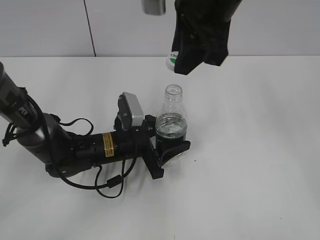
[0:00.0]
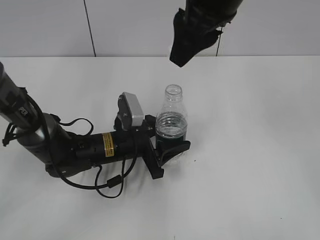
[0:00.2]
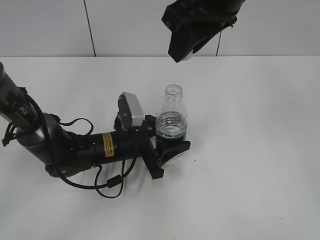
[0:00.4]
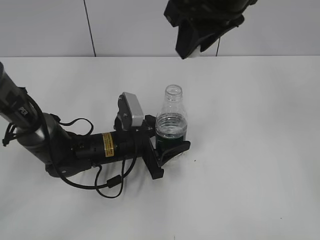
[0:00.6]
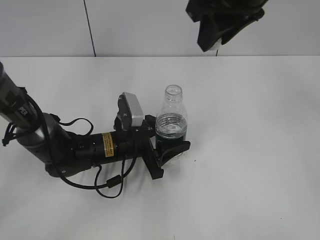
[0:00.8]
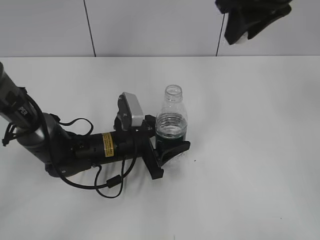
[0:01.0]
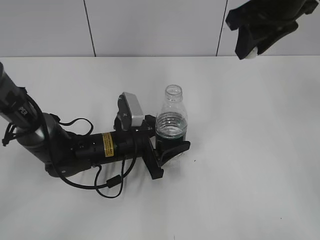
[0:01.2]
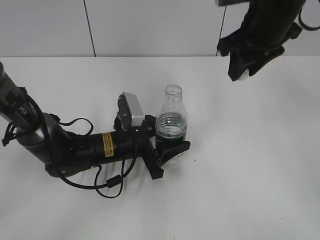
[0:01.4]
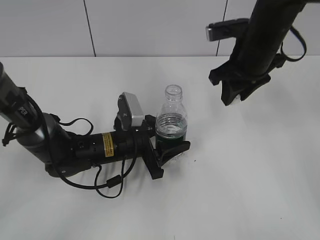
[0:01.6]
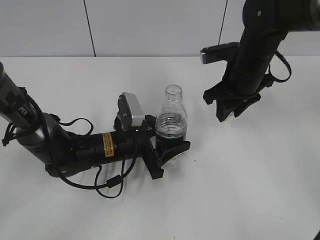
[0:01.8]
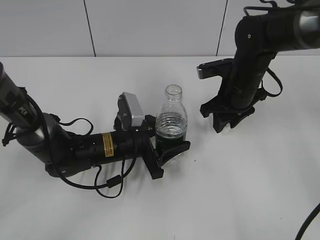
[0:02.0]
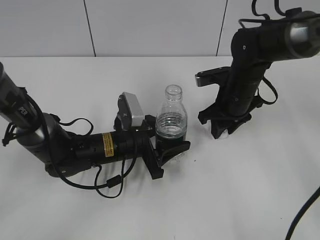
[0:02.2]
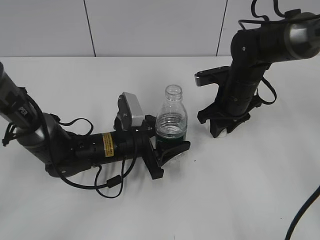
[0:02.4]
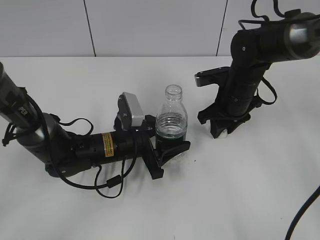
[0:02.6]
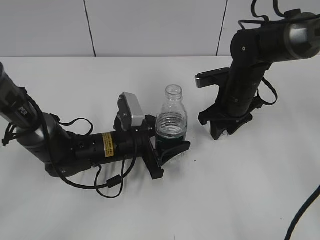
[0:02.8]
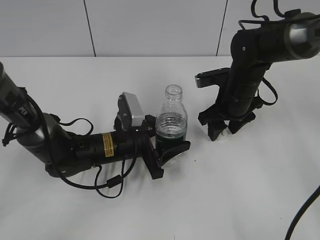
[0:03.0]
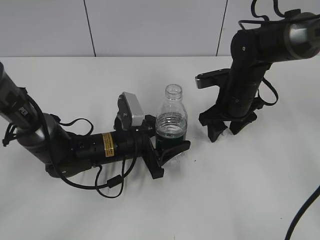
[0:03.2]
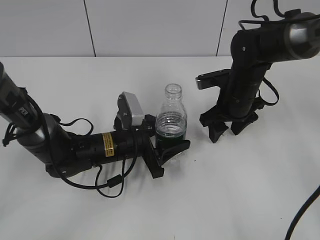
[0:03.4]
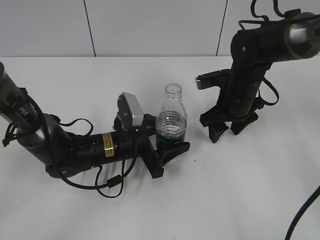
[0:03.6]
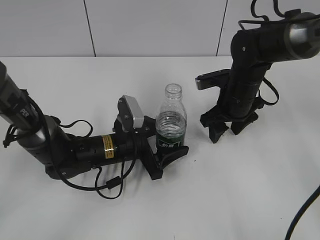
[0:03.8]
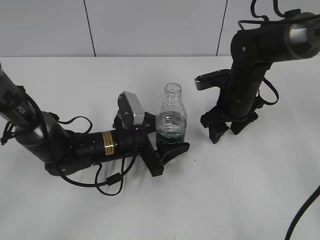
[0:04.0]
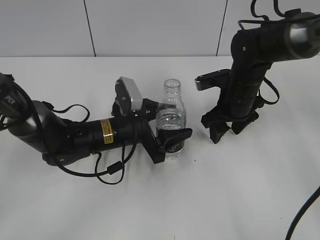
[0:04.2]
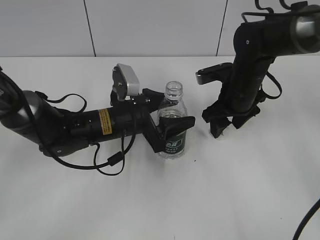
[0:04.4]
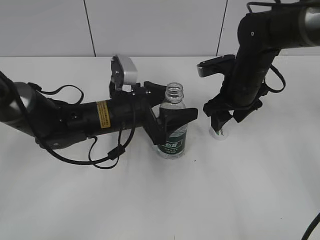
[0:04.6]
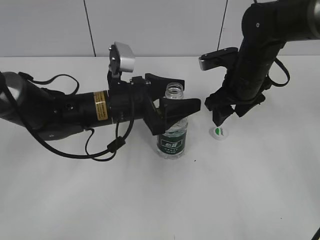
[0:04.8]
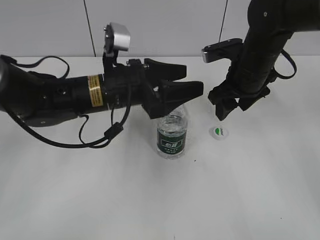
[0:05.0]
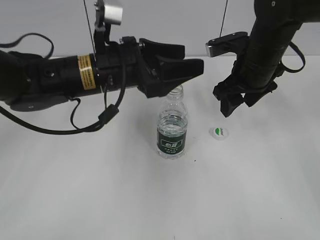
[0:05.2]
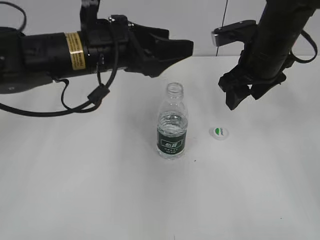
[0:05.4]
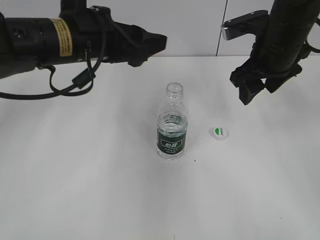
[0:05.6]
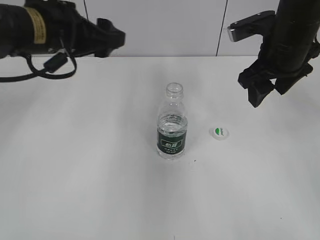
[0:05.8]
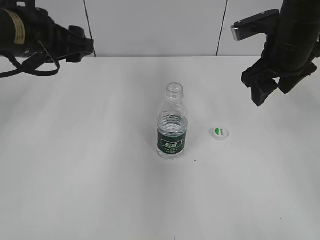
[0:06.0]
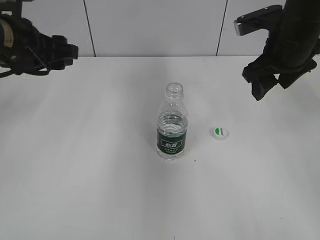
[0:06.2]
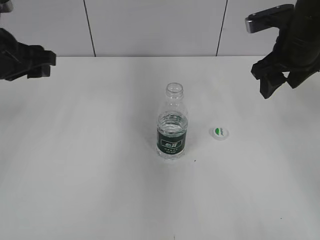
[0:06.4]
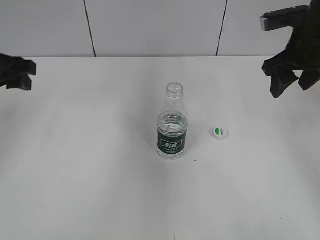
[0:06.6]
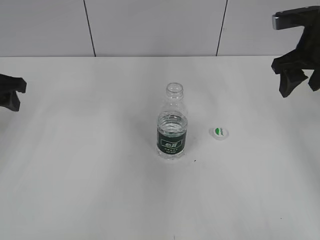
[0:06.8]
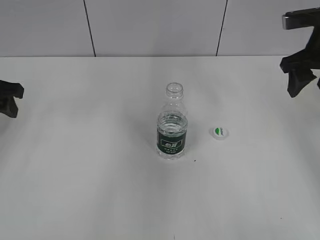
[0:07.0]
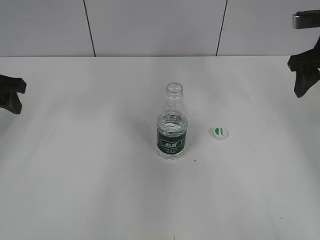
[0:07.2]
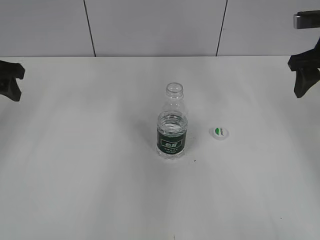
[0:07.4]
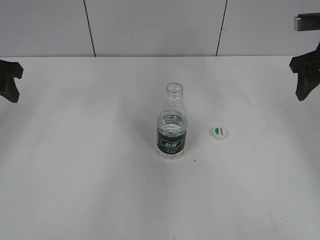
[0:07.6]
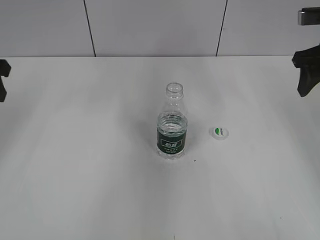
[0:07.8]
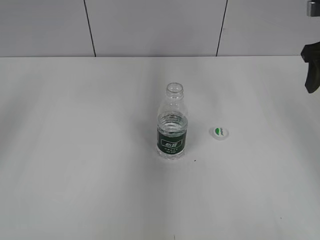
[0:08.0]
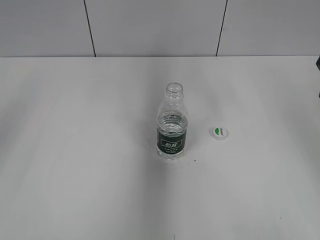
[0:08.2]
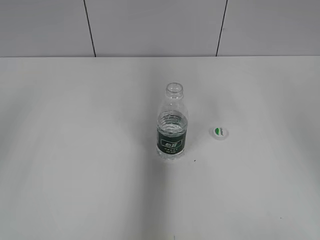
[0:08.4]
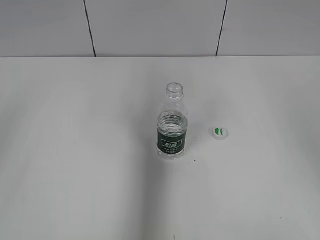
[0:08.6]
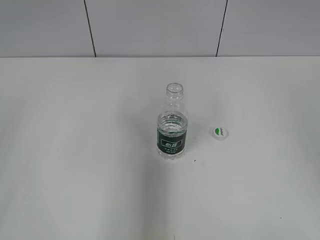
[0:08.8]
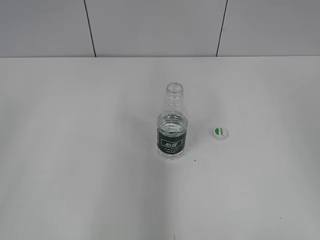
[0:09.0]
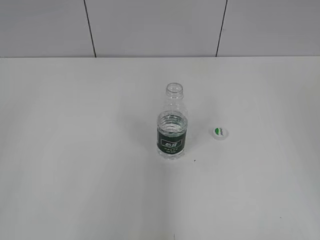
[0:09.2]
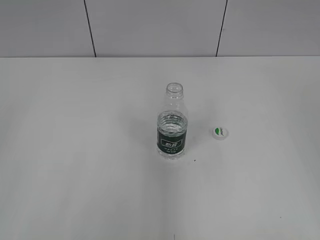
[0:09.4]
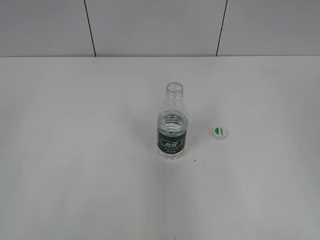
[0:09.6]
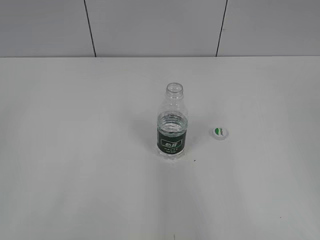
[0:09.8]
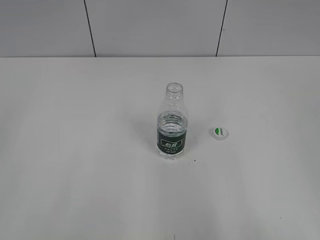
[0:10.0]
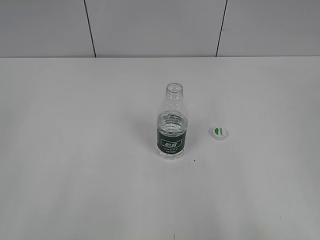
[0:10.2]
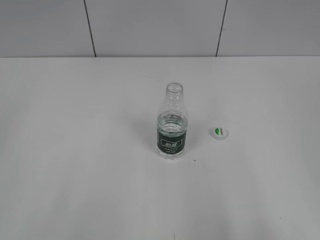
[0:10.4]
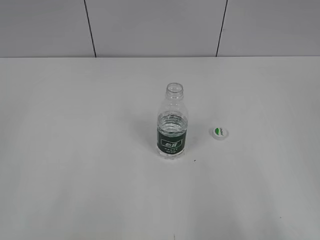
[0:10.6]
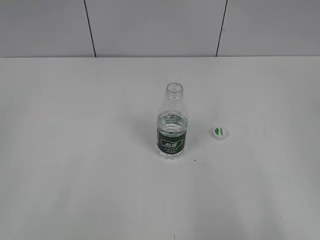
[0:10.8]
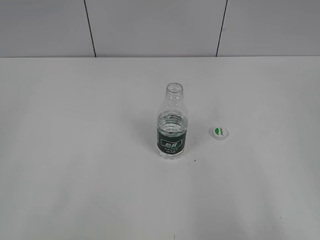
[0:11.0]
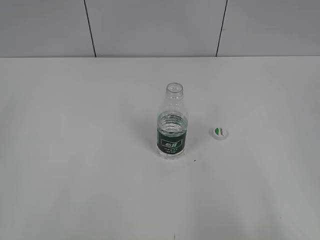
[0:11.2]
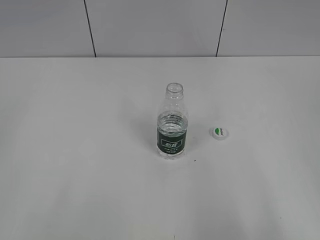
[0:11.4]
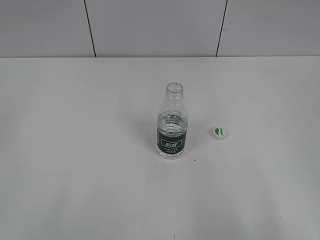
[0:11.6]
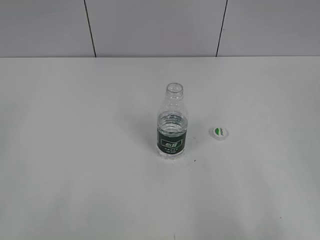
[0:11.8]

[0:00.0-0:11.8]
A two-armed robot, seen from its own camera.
Step, 0:00.2 to 0:03.0: Place the bottle cap on the table with the right gripper.
Step, 0:03.2 to 0:04.6: Place the bottle on the table with the left gripper.
0:00.0 to 0:01.4: The right gripper shifts approximately 10 cm to the right and forward.
0:01.4 to 0:03.0: The right gripper moves downward, some 20 cm, and opens up.
0:03.0 to 0:04.4: The left gripper opens up.
0:04.4 to 0:06.0: The left gripper is displaced upward and to the left by approximately 20 cm. The right gripper heads upward, covering approximately 10 cm.
0:06.0 to 0:07.4: The right gripper goes roughly 10 cm to the right, while the left gripper travels to the left by approximately 10 cm.
0:07.4 to 0:08.8: Both grippers move backward and upward, some 20 cm.
0:08.8 to 0:10.4: The right gripper moves backward, roughly 25 cm; the left gripper travels backward by some 15 cm.
